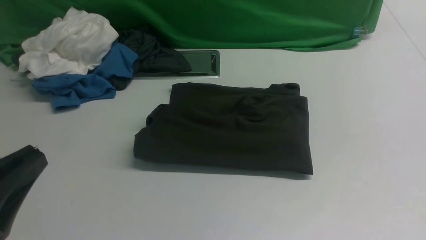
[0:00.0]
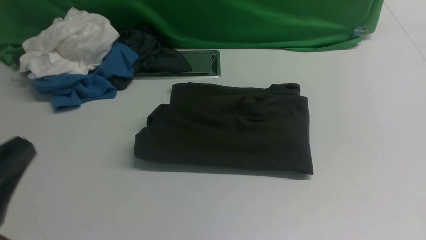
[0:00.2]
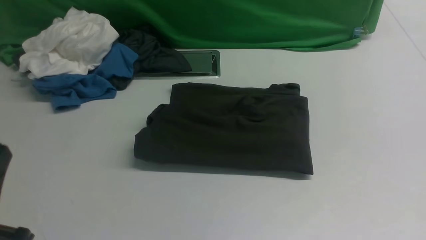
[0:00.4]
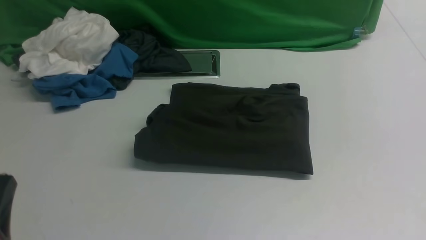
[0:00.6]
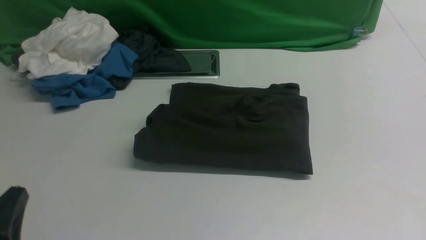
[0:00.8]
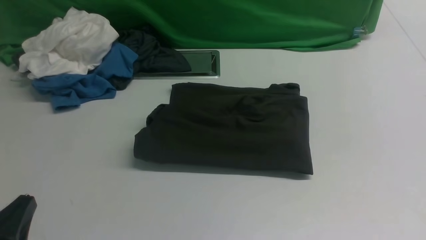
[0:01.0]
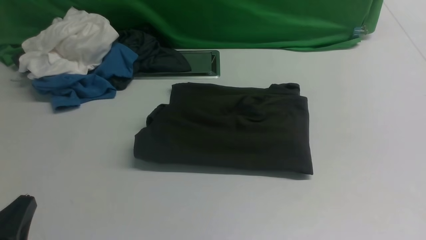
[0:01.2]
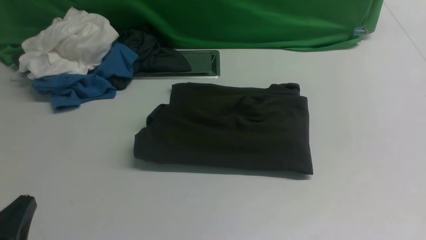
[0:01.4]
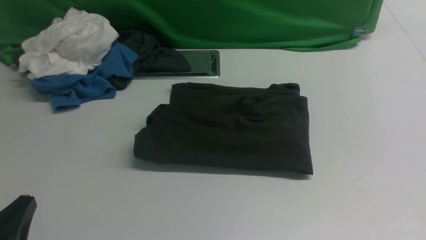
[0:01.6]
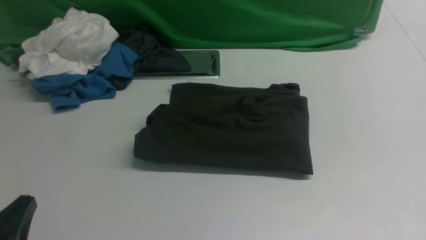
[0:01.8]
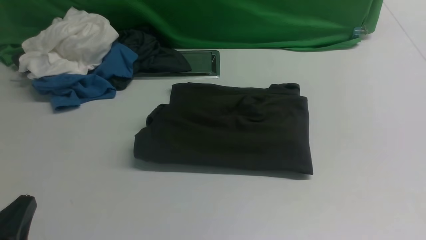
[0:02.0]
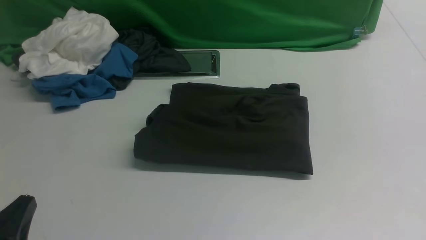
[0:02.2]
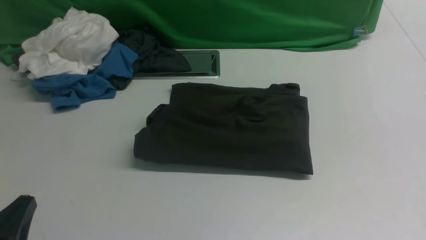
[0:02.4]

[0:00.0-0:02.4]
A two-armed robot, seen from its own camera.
0:00.0 to 0:01.2: The left gripper moves downward, some 10 cm.
0:01.2 to 0:02.4: Both grippers stay put.

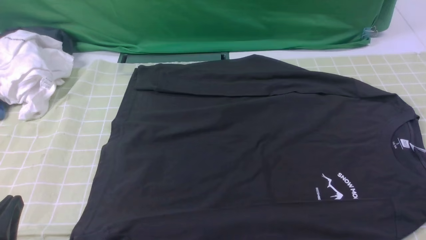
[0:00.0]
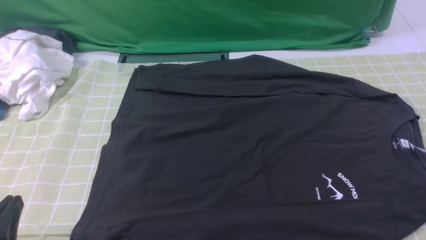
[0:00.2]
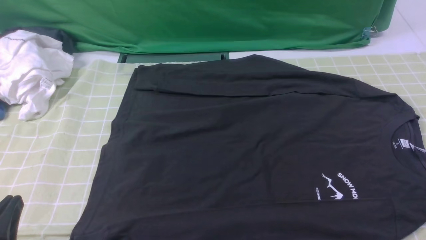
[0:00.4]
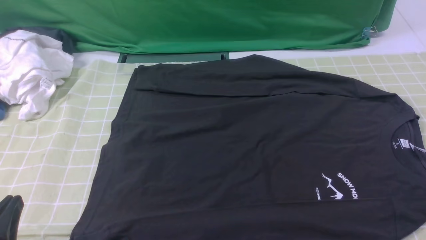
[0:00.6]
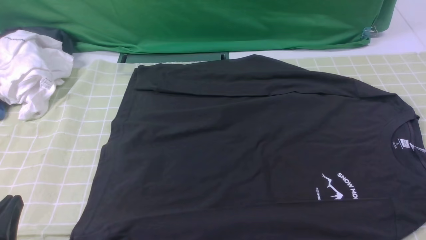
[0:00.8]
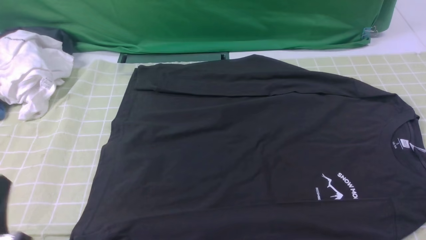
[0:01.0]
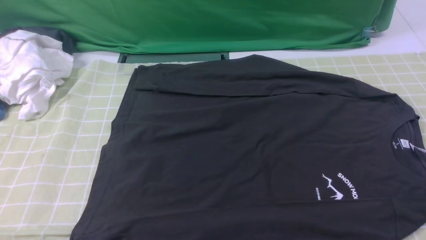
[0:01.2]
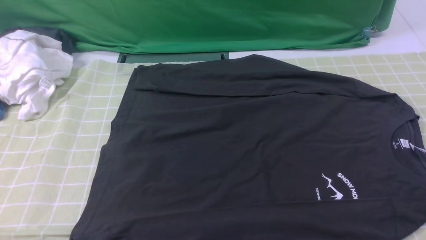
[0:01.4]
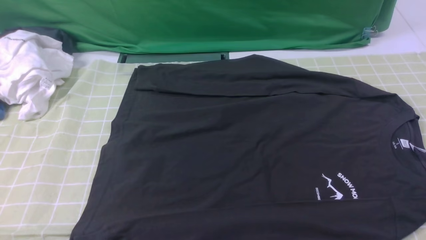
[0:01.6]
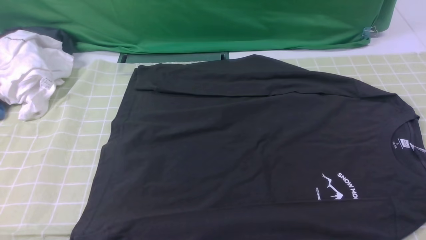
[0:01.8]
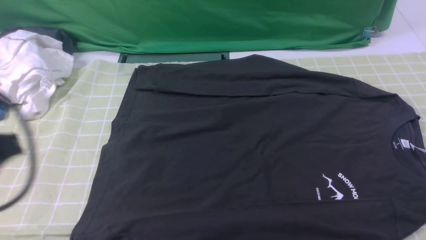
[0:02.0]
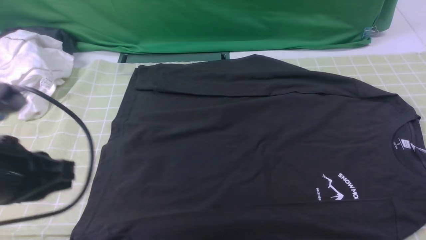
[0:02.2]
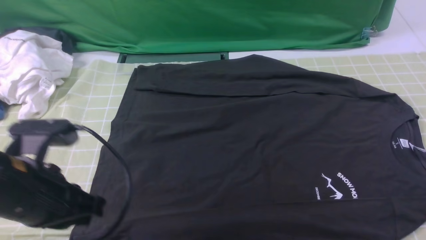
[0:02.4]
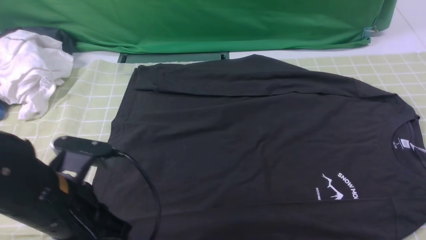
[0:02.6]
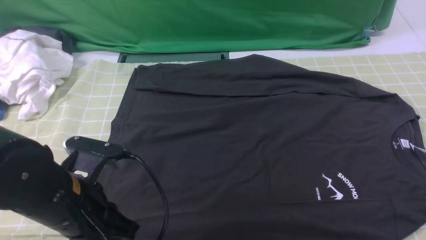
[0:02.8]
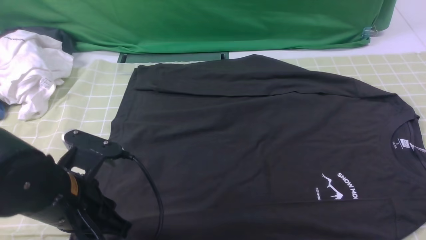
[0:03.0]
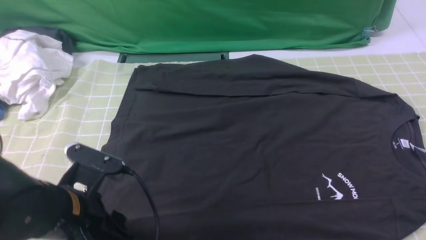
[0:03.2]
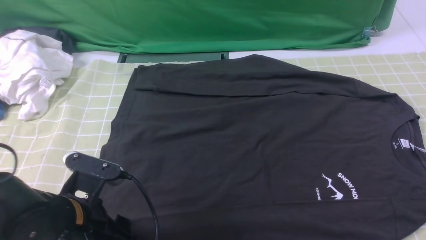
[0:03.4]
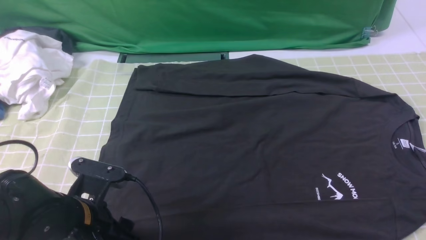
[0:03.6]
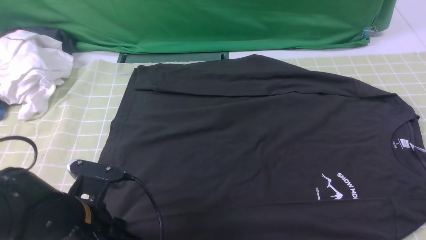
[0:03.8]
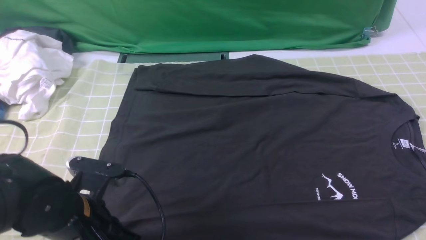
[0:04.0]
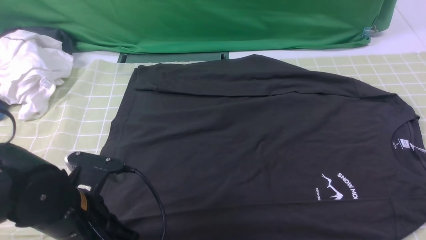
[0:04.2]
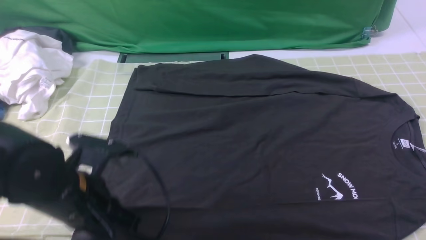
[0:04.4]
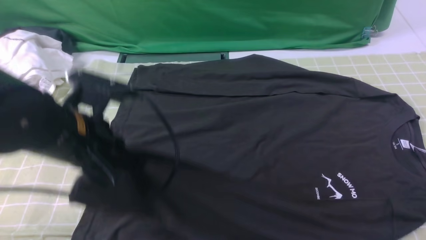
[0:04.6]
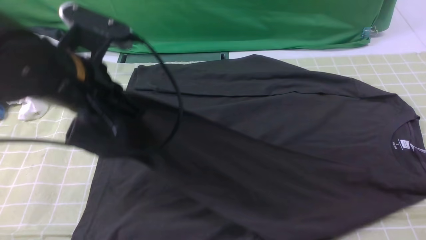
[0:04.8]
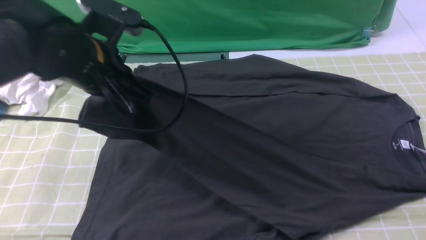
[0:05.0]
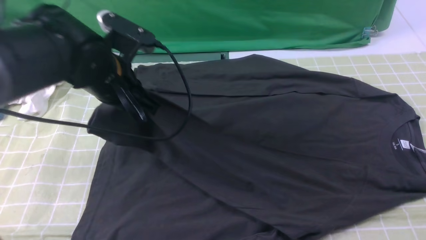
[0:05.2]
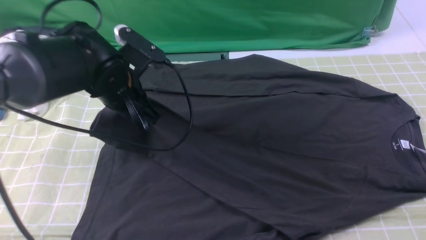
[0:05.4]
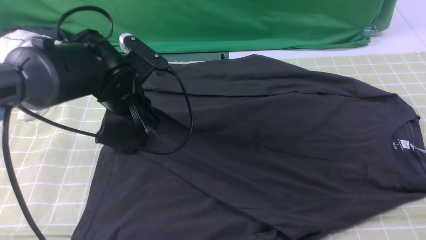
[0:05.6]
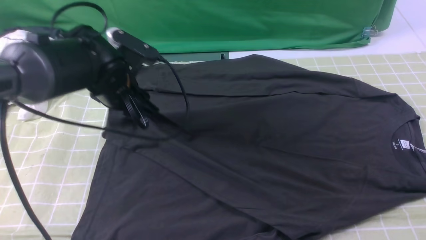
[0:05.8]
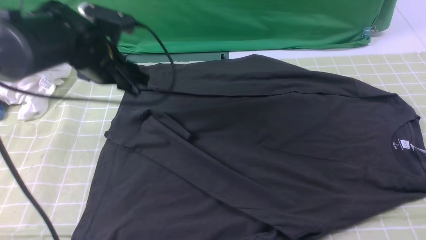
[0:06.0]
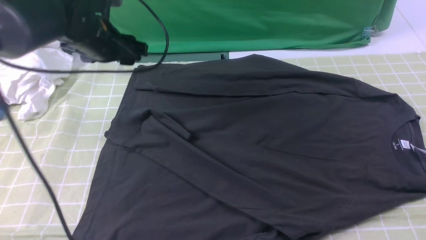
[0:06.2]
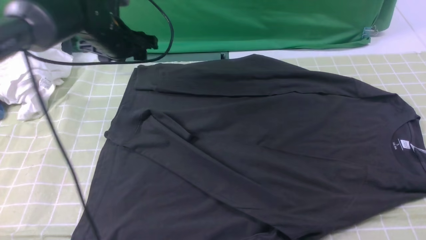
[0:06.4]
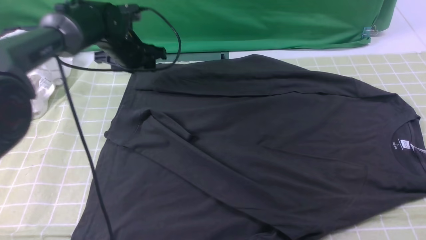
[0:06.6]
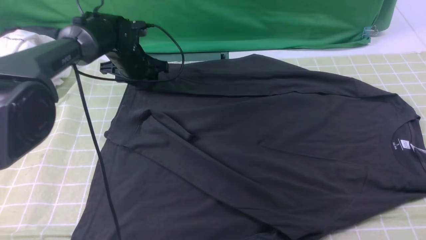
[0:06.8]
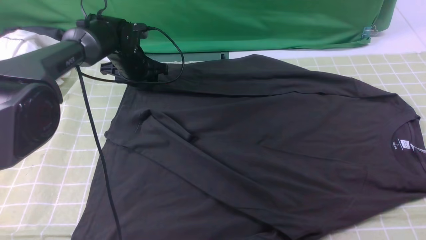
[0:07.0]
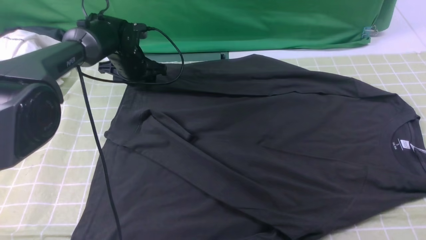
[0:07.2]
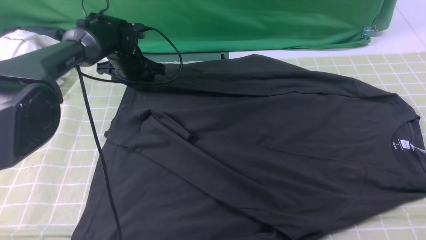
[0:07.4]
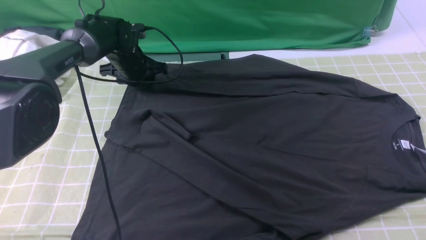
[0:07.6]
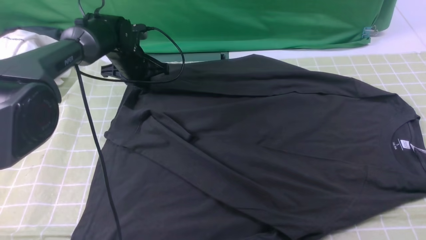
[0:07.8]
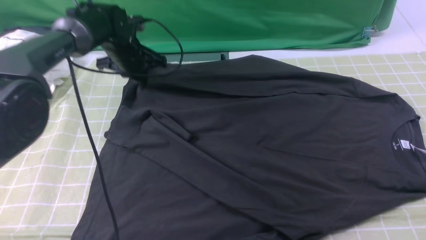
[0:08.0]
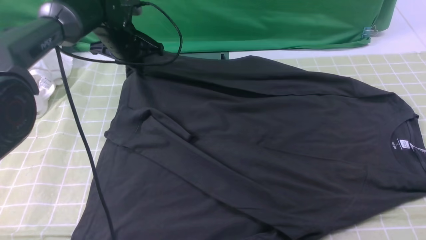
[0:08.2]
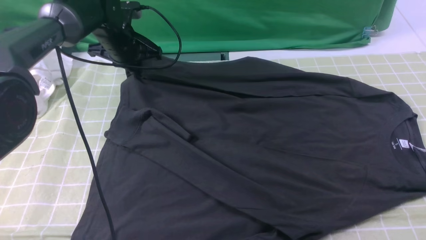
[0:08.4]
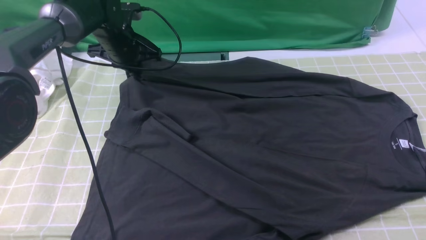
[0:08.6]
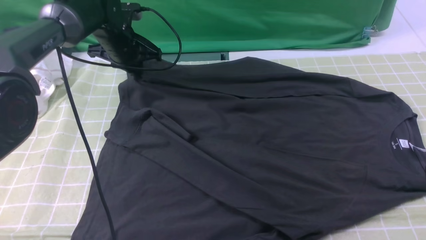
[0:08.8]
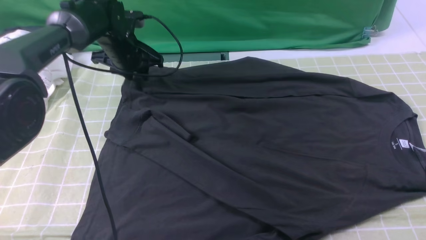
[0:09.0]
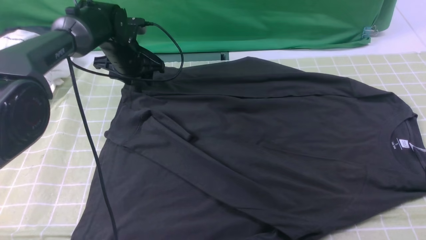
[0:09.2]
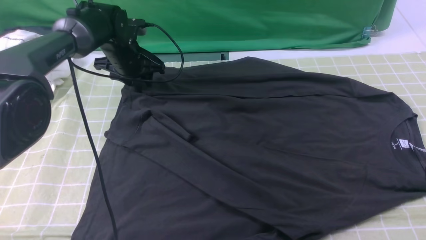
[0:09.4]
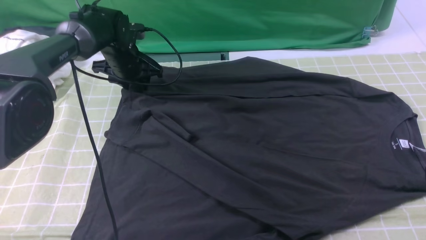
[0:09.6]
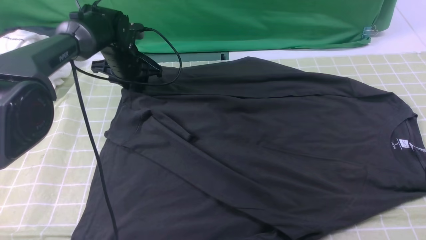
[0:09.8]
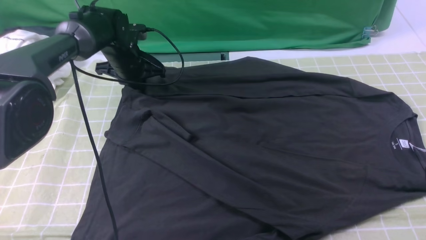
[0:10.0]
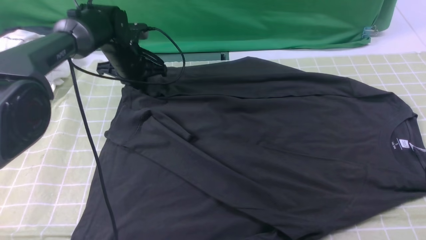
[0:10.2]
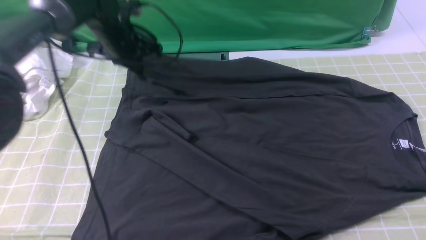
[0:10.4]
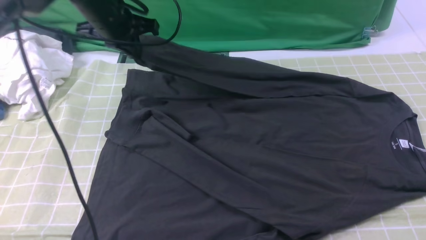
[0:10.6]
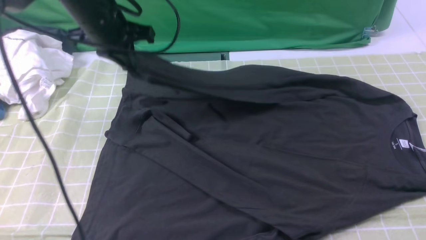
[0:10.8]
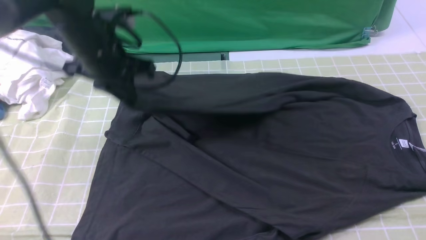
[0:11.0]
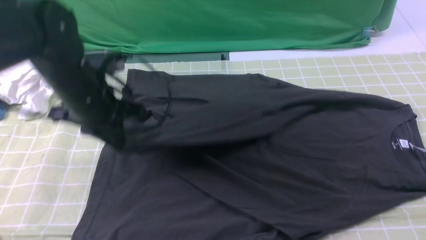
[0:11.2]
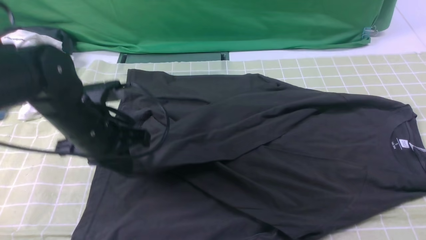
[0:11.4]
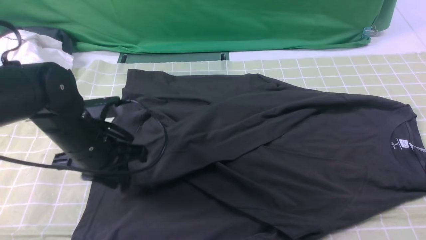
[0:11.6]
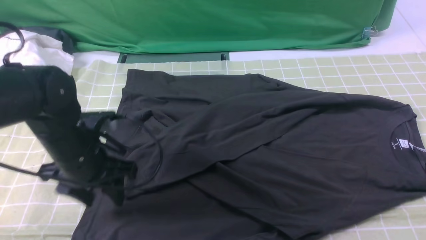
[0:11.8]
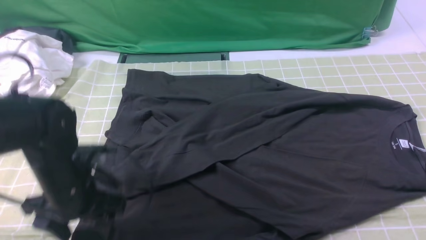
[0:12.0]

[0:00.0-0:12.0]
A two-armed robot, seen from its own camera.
Step, 0:00.0 to 0:03.8: use the left arm to clamp the cuff closest to it.
Step, 0:04.0 to 0:05.8: use the left arm to drag and place the cuff at the centered position on the left edge of the fabric.
Step, 0:06.0 to 0:10.0: use the left arm to clamp the cuff farthest from it.
Step, 0:10.4 to 0:11.6: use the left arm to drag and drop the cuff onto the cuff closest to the left arm.
0:00.0 to 0:01.6: The left gripper goes approximately 10 cm upward.
0:01.6 to 0:03.0: The left gripper moves forward, downward and to the right, about 20 cm, and opens.
0:03.0 to 0:04.4: The left gripper closes its fingers.
0:04.4 to 0:06.0: The left gripper heads forward, covering roughly 20 cm, and opens its fingers.
0:06.0 to 0:07.6: The left gripper travels forward and downward by some 15 cm.
0:07.6 to 0:09.0: The left gripper closes, then opens again.
0:09.0 to 0:10.4: The left gripper moves approximately 5 cm, and closes up.
0:10.4 to 0:12.0: The left gripper goes some 25 cm backward, and opens up.

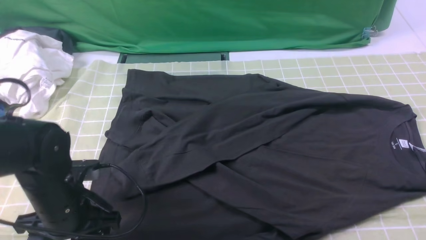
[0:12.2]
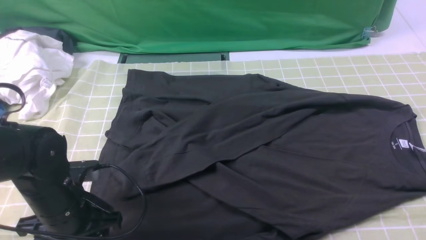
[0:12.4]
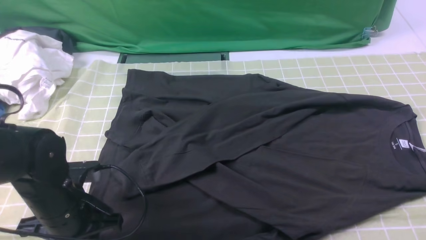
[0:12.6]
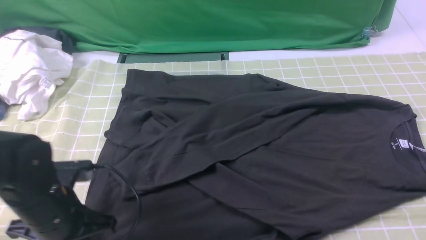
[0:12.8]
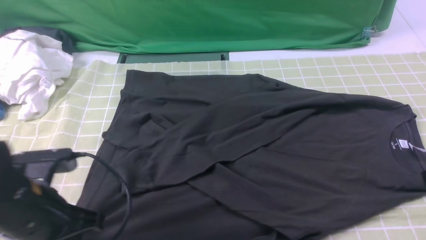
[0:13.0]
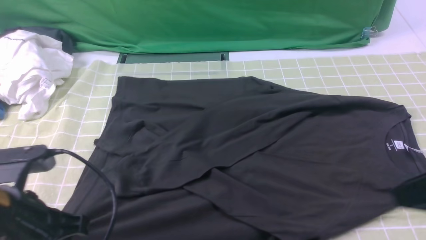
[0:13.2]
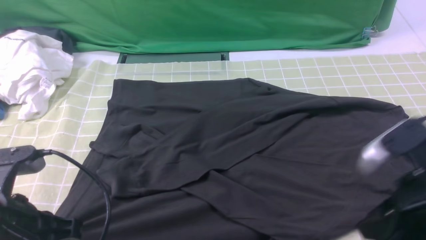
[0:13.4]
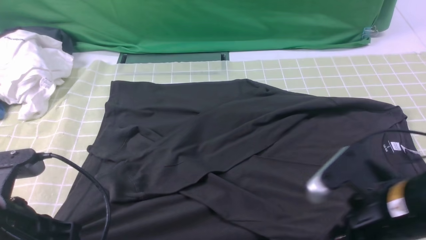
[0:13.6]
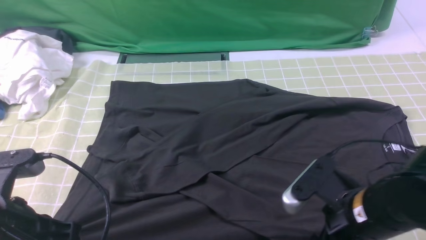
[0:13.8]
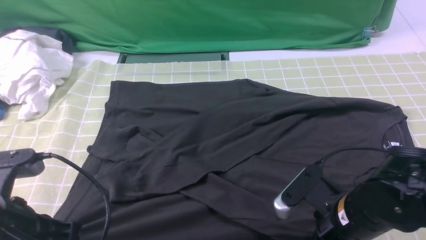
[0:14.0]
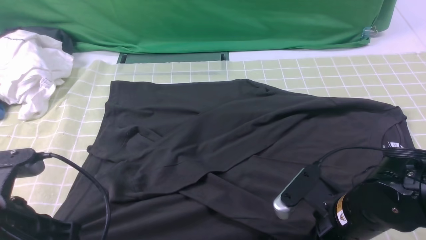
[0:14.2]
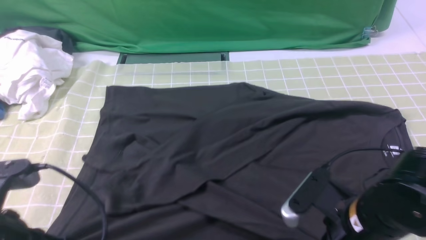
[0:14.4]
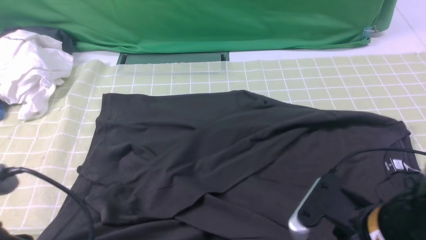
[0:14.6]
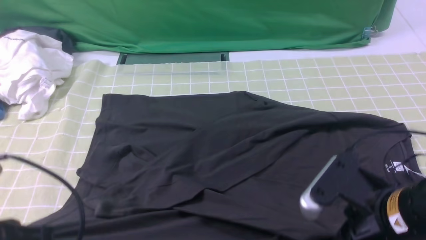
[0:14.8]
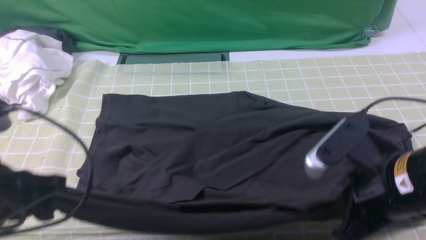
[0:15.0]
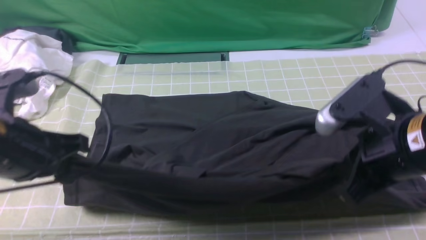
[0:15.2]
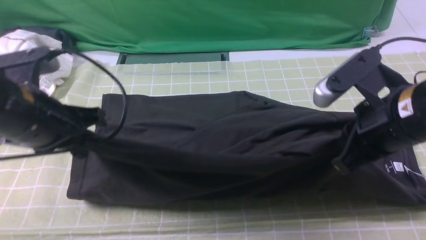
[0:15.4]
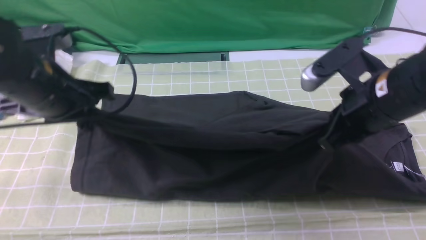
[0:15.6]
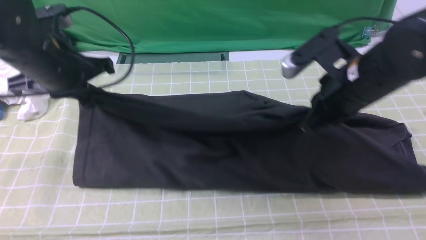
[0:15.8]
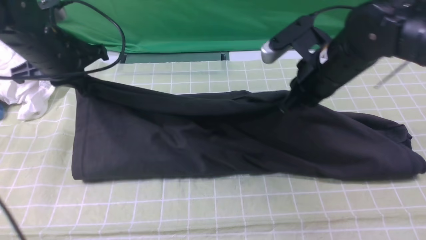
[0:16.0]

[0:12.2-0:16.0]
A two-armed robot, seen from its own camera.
Step, 0:12.2 to 0:14.0: use both arms simultaneously to clamp the lower edge of the clothing fabric.
0:12.2 to 0:13.4: The left gripper goes some 15 cm upward and backward, and closes up. Meanwhile the right gripper shifts approximately 10 cm to the left and downward.
0:13.4 to 0:14.8: The right gripper moves about 10 cm downward and comes back, and closes up.
0:14.8 to 0:16.0: The two grippers go some 25 cm forward.
